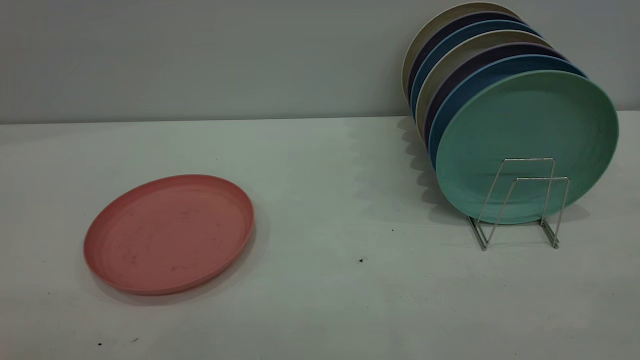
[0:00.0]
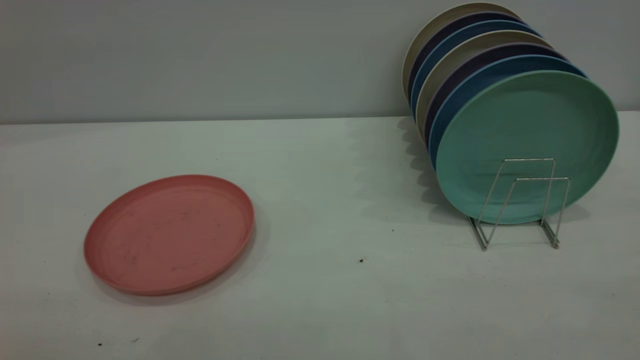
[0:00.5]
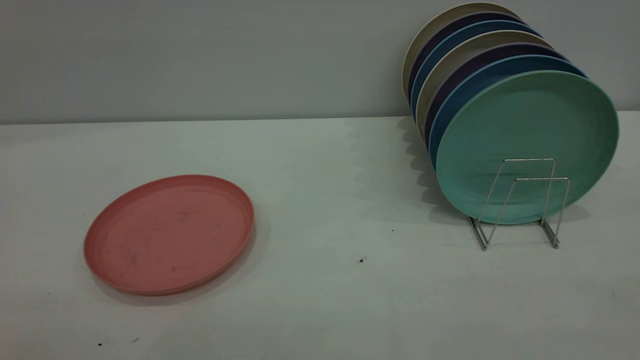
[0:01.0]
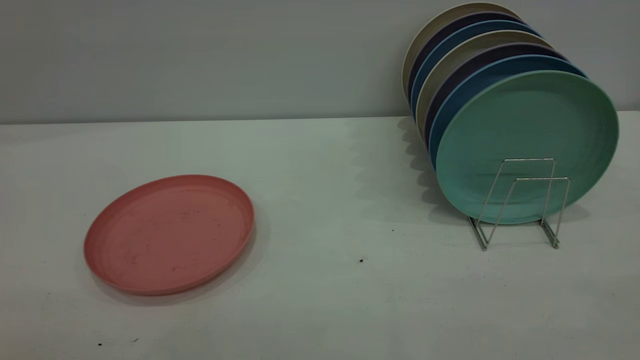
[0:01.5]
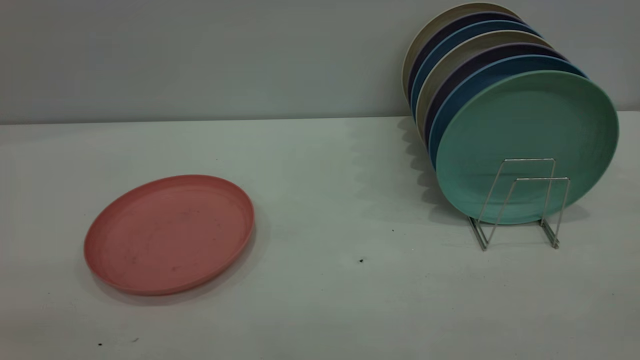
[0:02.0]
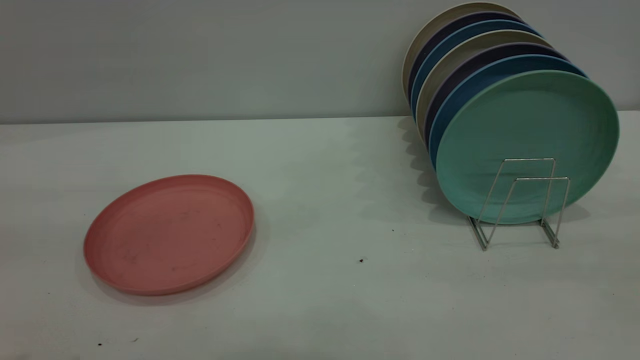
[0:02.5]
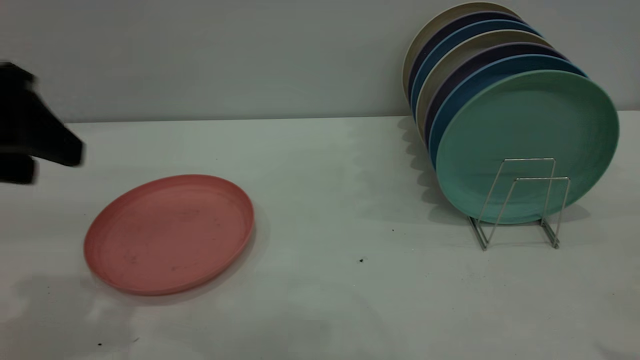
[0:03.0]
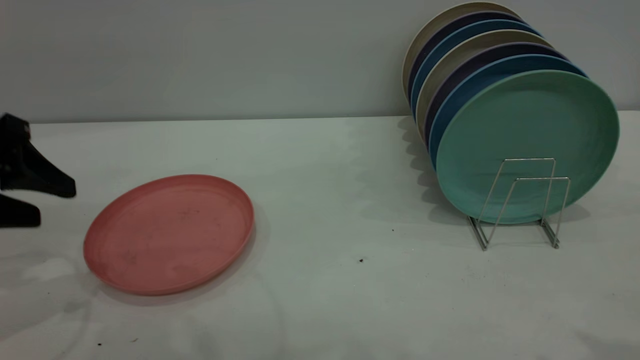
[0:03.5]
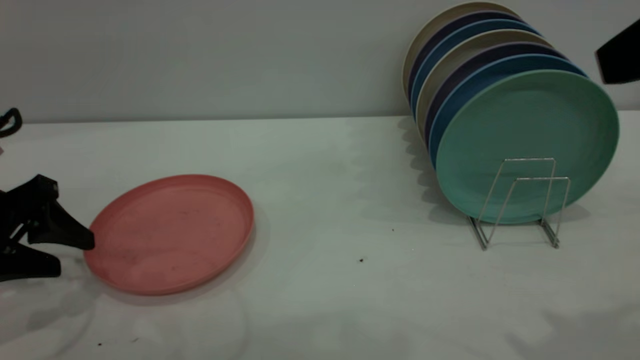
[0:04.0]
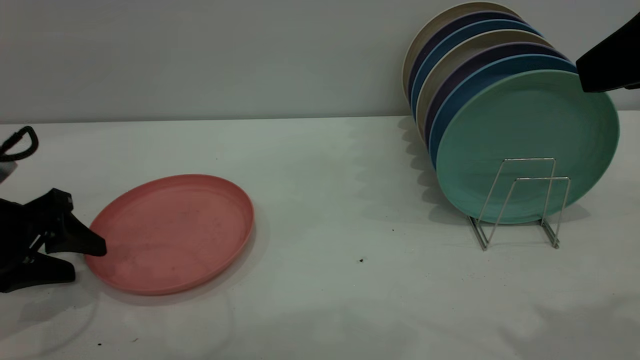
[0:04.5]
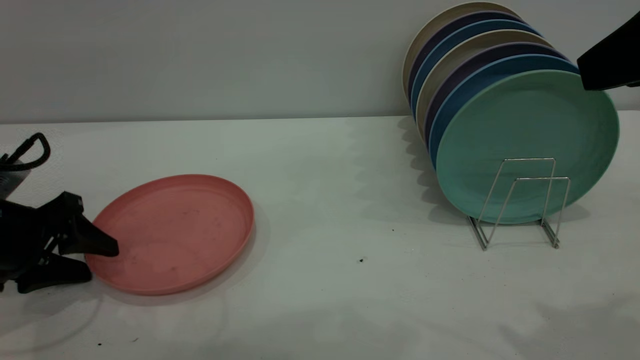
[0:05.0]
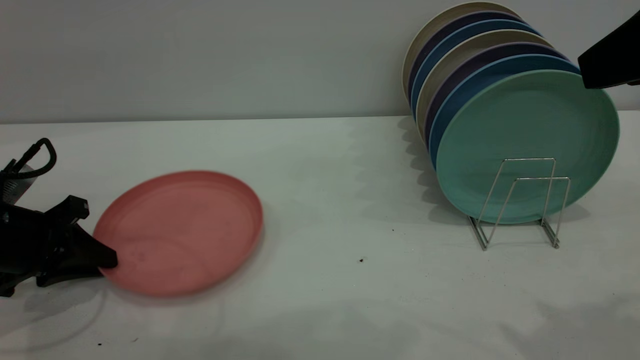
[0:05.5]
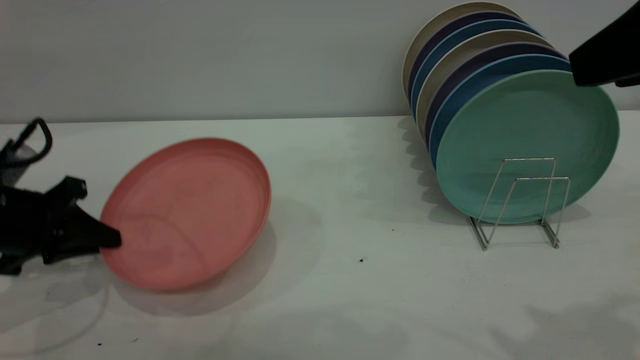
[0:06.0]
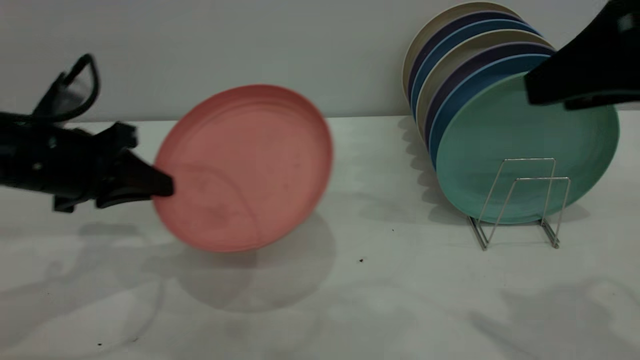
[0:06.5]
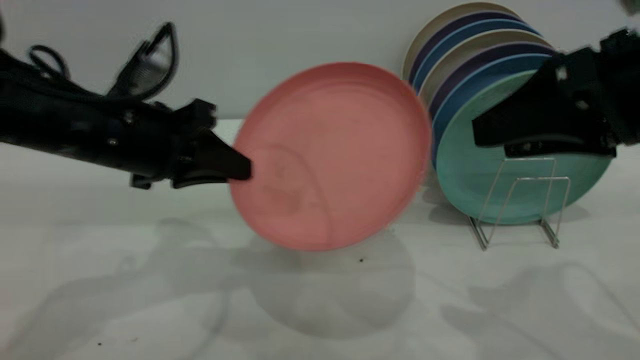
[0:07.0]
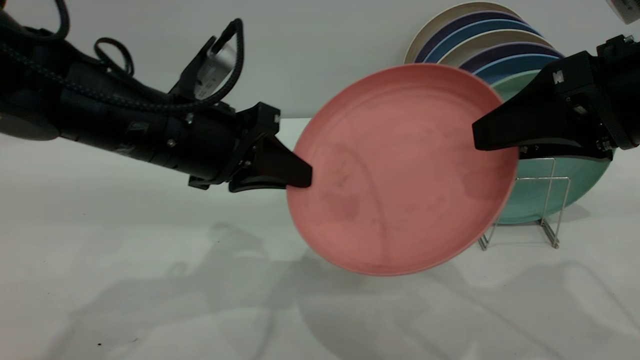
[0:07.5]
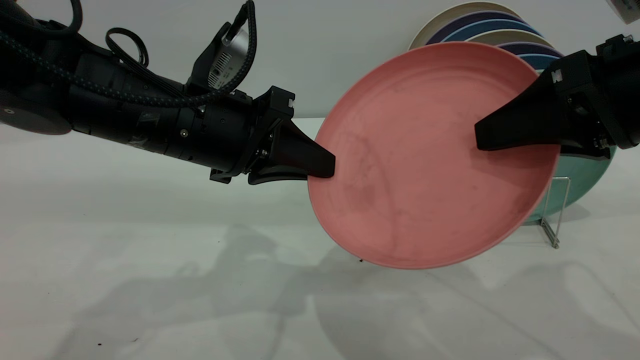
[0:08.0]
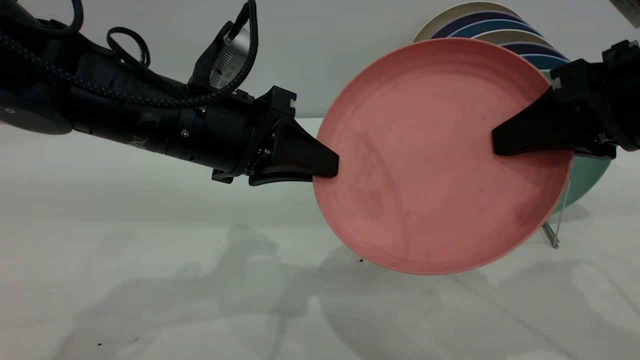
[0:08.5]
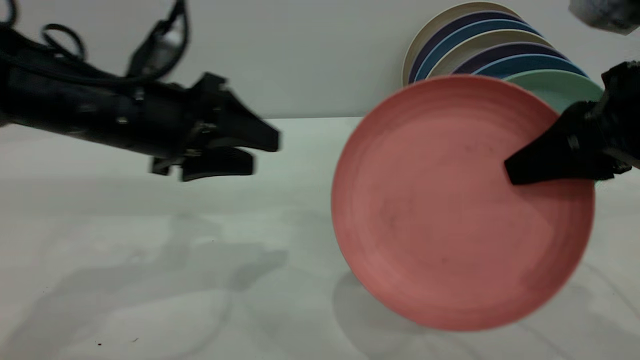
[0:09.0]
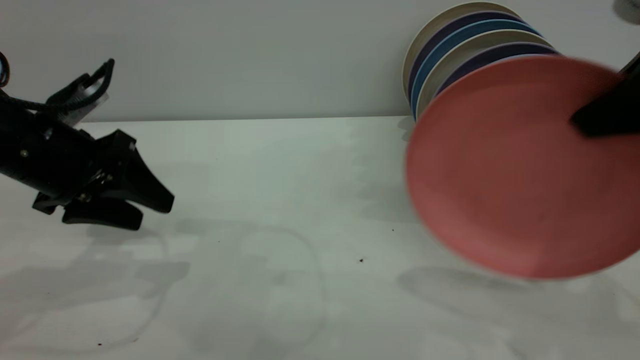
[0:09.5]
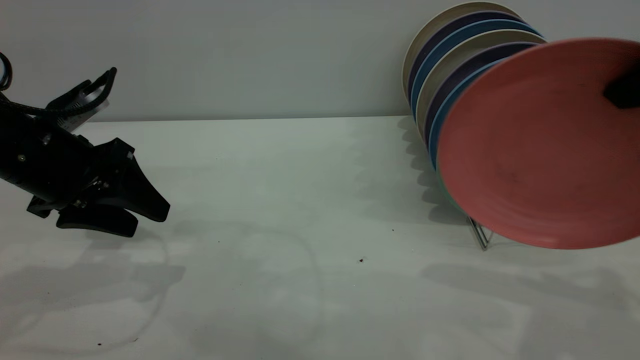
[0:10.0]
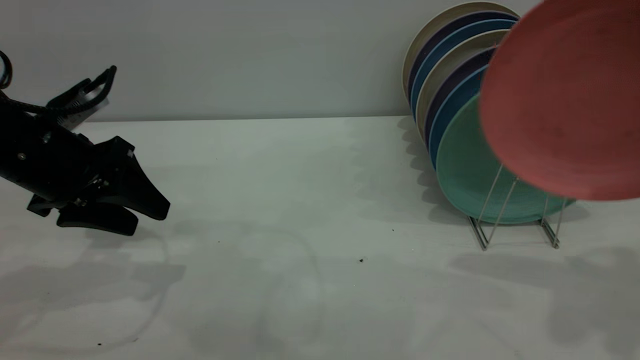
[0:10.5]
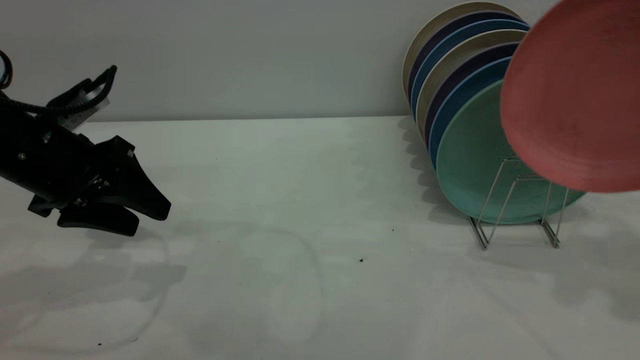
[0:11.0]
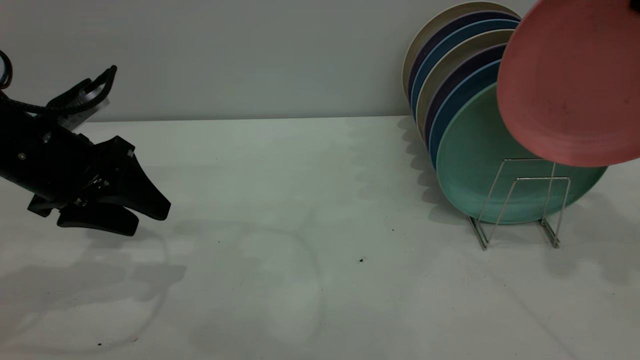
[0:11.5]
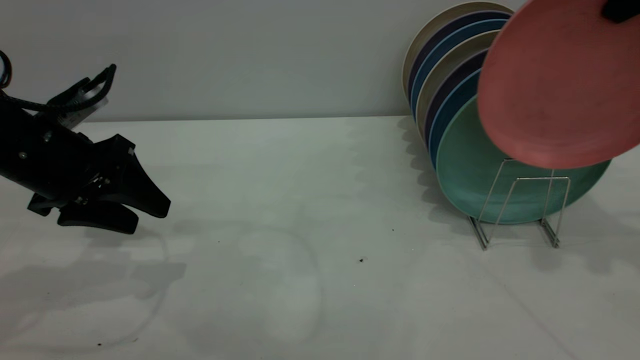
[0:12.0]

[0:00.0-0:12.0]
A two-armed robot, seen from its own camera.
Task of the whole recording: the left gripper grasp the pink plate, the left gripper pass the pink plate to the right gripper, and the right gripper place the pink plate on the plate rack.
Step, 0:00.0 to 0:06.0: Pick up the plate with the left gripper.
Step, 0:06.5 to 0:08.5: Pass the plate from the left gripper to the right gripper.
0:02.0 to 0:04.0: The left gripper shifts approximately 35 cm forward and downward, while the right gripper goes approximately 20 cm forward.
0:04.0 to 0:06.0: The left gripper closes its fingers.
0:06.0 to 0:08.0: The right gripper heads downward and forward, covering roughly 10 cm, and closes up, while the left gripper moves to the right and upward, roughly 20 cm.
0:08.0 to 0:10.0: The right gripper is displaced upward by roughly 5 cm, and closes. Meanwhile the left gripper shifts some 15 cm to the left, and opens its fingers.
0:10.0 to 0:12.0: The right gripper heads forward, covering roughly 15 cm.

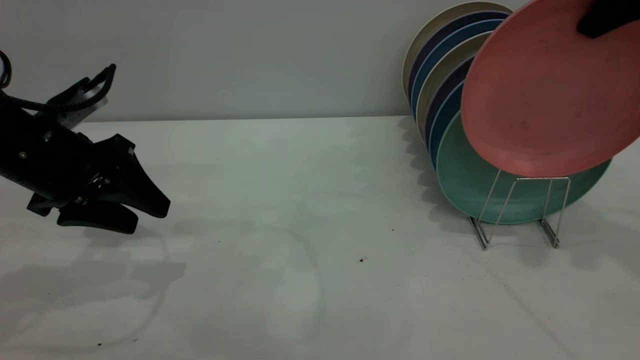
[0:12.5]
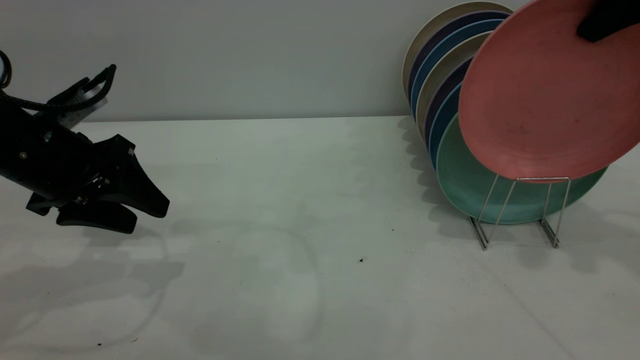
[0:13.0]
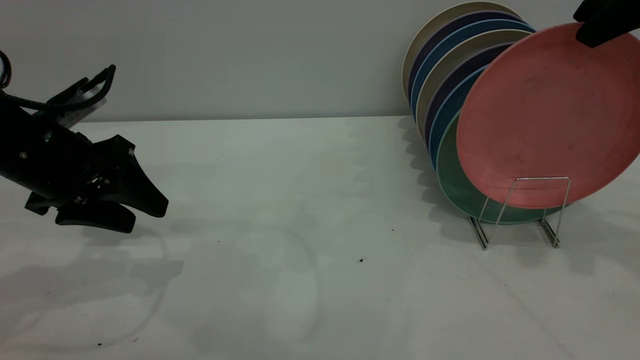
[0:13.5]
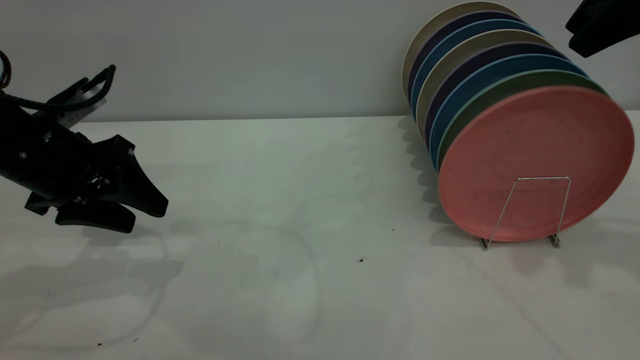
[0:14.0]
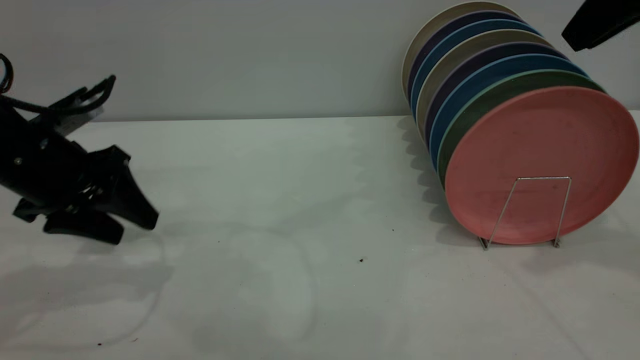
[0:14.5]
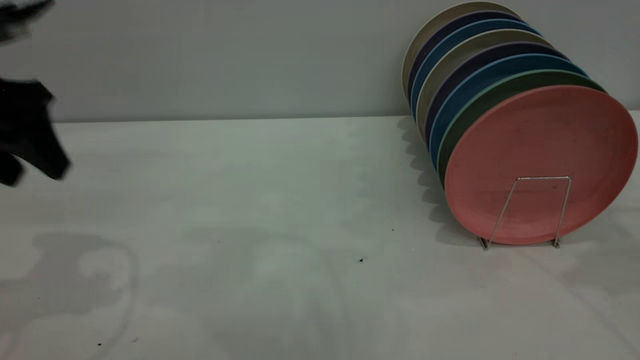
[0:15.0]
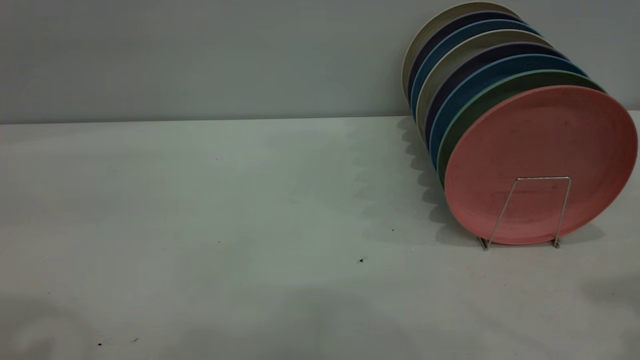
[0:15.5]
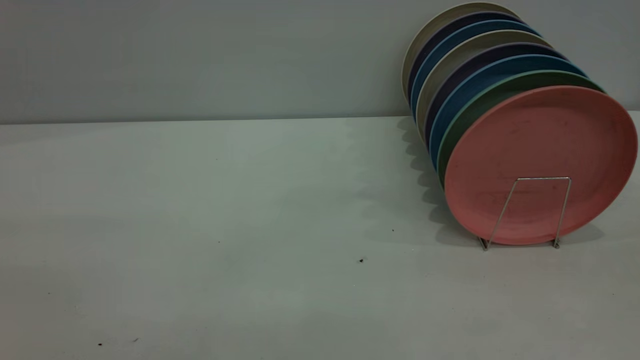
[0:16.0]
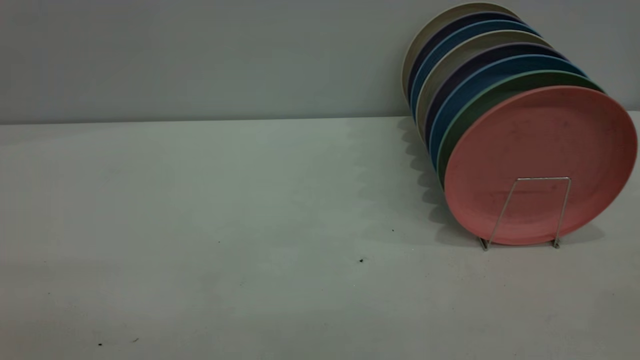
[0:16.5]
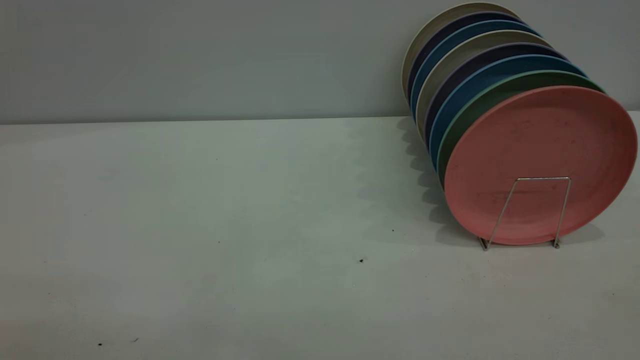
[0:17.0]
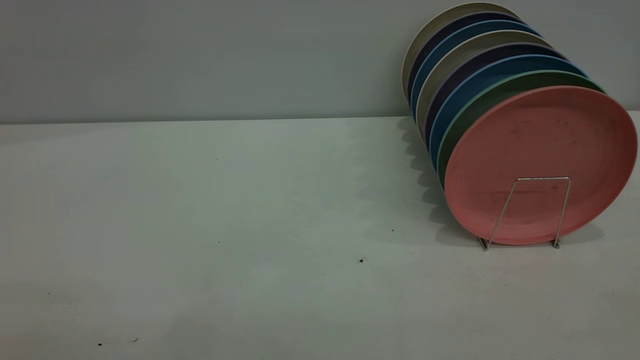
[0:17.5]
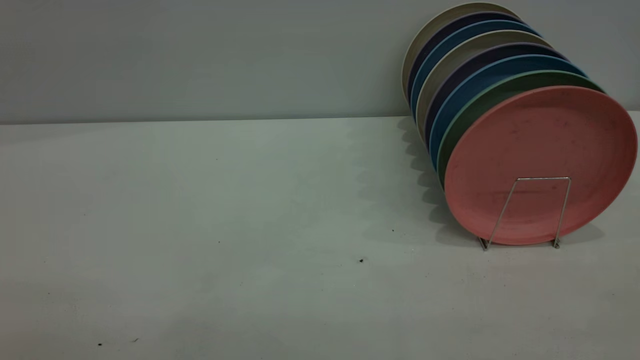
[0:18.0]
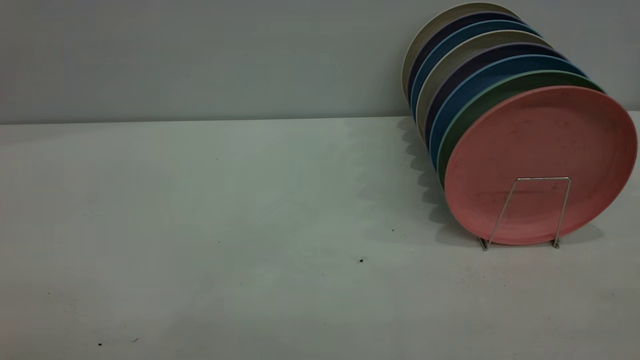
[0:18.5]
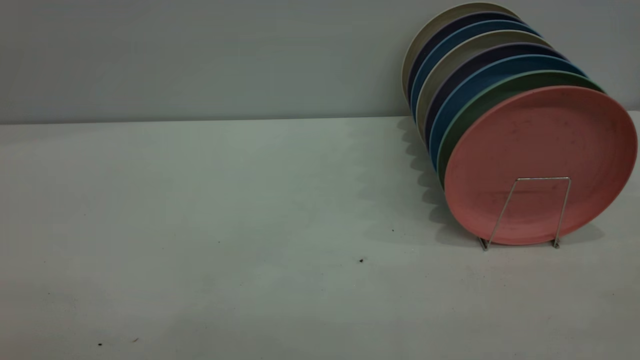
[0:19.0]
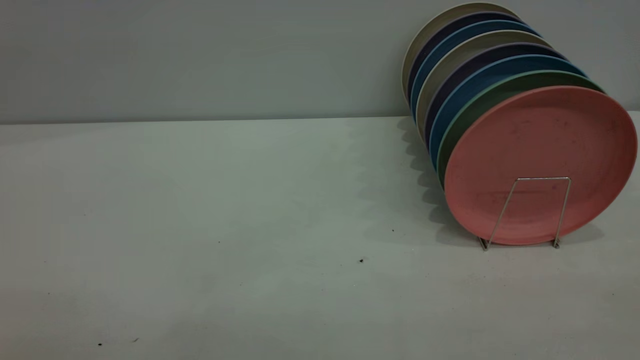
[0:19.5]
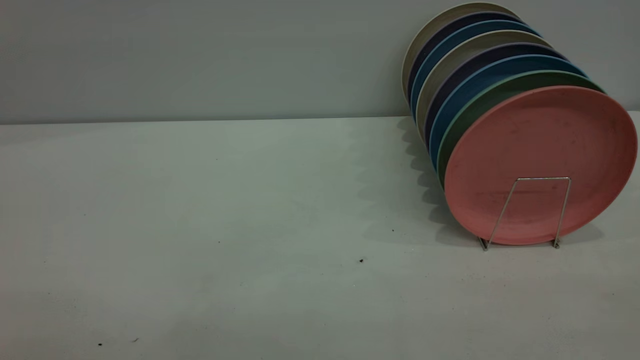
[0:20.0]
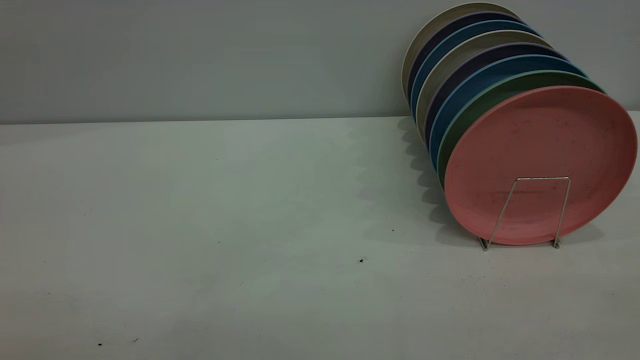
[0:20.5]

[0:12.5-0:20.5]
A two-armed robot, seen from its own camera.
Task of the whole recording: the left gripper grasp the pink plate, the left gripper pass the pink plate to the right gripper, and the right gripper place the pink plate on the plate rack.
0:12.5 to 0:14.5: The right gripper opens up.
0:14.5 to 0:16.5: The right gripper shifts about 35 cm backward. Meanwhile the left gripper is displaced backward and upward by approximately 40 cm.
